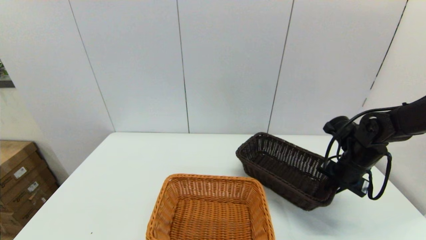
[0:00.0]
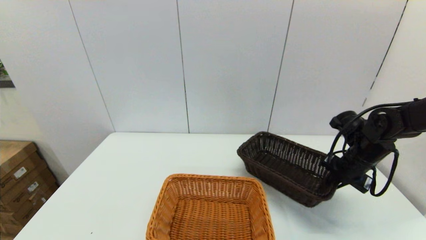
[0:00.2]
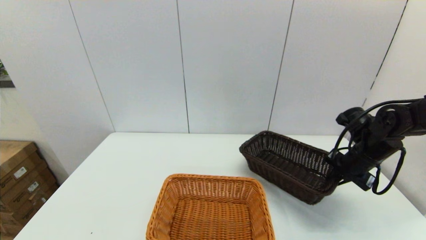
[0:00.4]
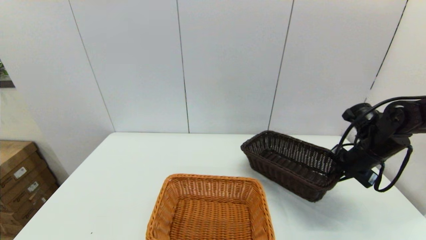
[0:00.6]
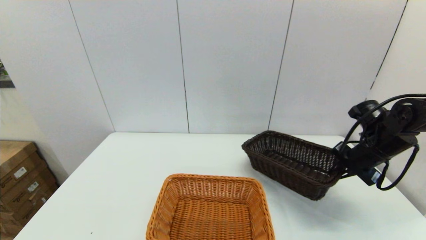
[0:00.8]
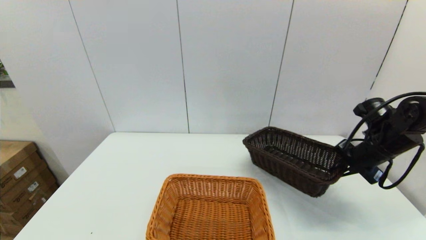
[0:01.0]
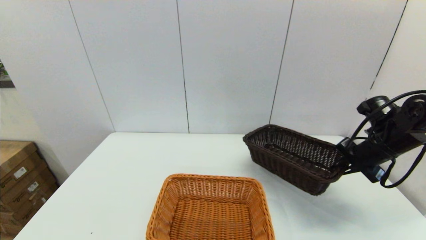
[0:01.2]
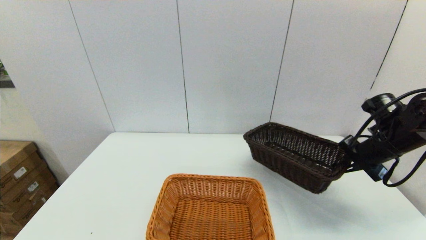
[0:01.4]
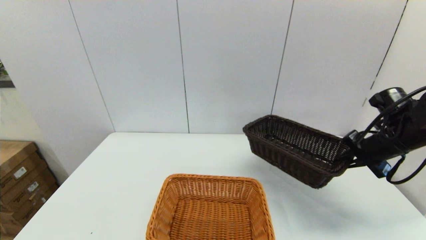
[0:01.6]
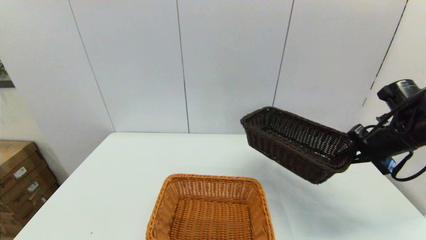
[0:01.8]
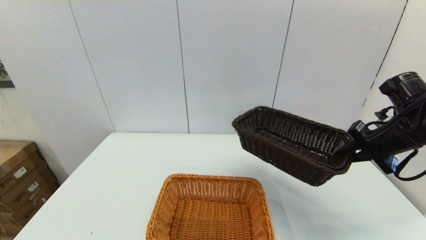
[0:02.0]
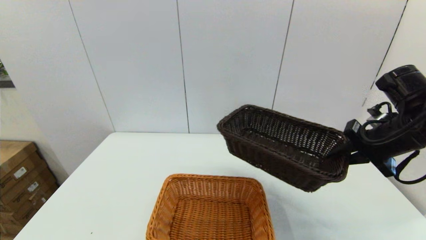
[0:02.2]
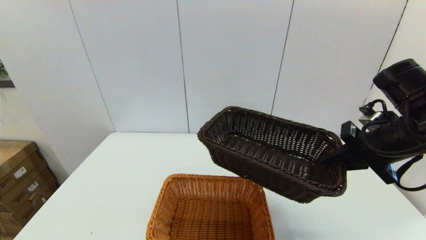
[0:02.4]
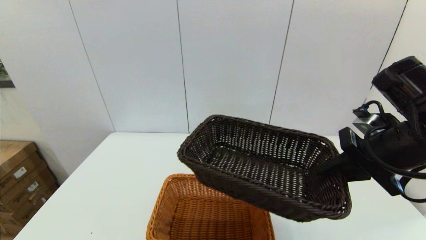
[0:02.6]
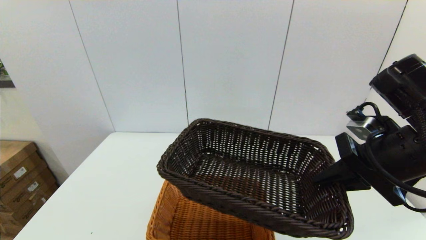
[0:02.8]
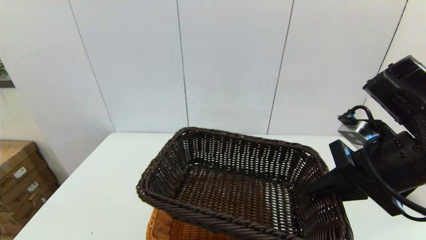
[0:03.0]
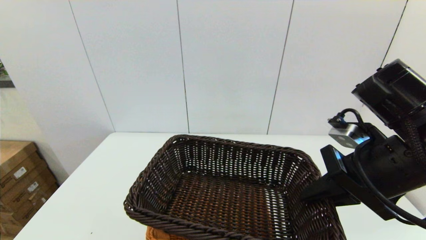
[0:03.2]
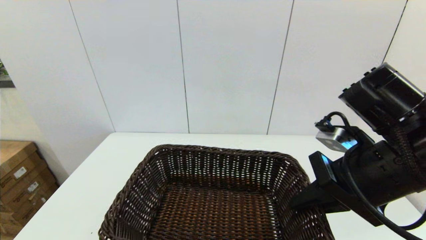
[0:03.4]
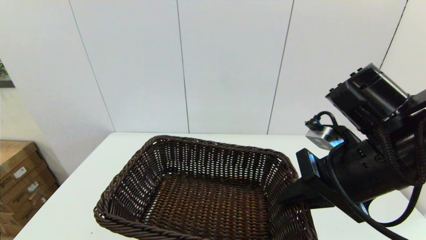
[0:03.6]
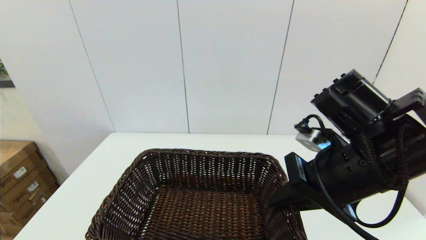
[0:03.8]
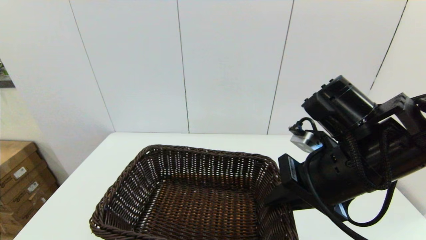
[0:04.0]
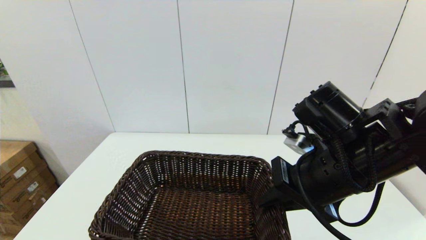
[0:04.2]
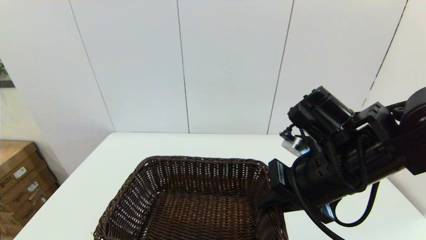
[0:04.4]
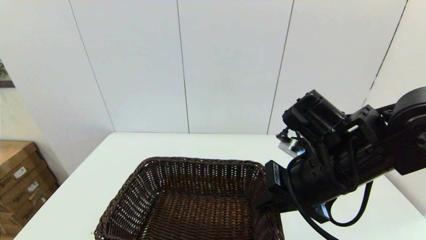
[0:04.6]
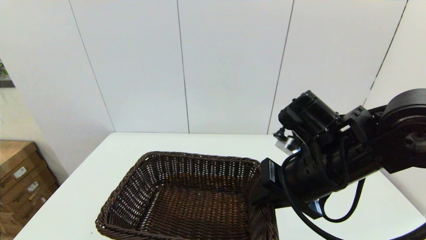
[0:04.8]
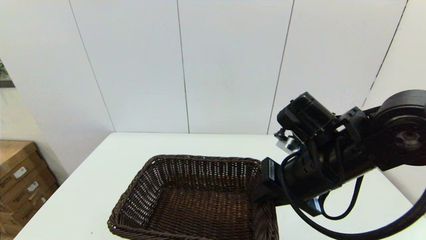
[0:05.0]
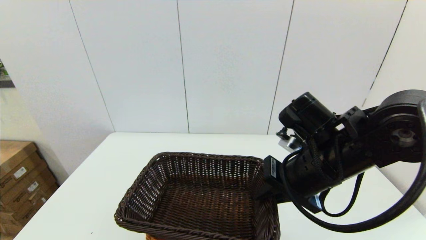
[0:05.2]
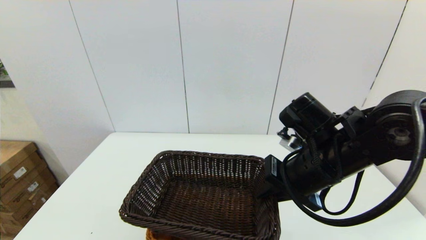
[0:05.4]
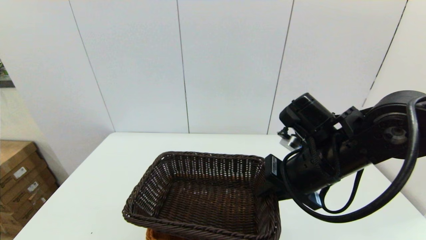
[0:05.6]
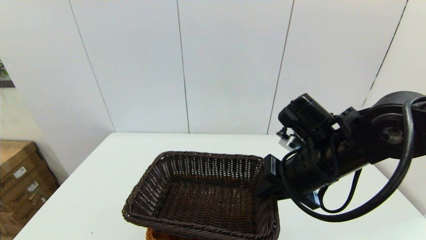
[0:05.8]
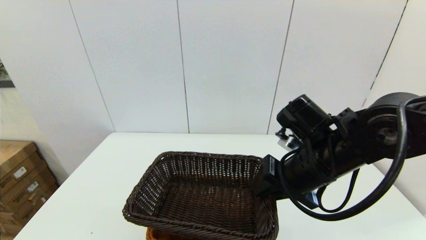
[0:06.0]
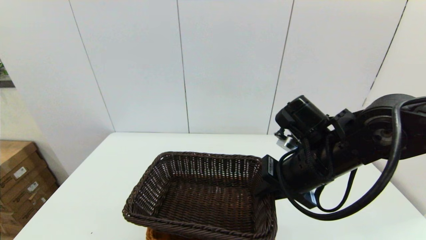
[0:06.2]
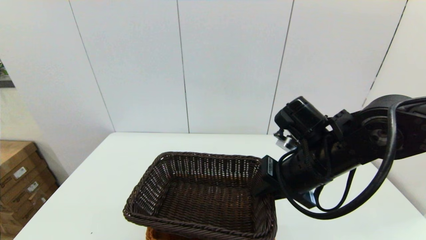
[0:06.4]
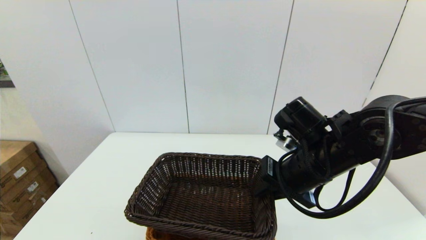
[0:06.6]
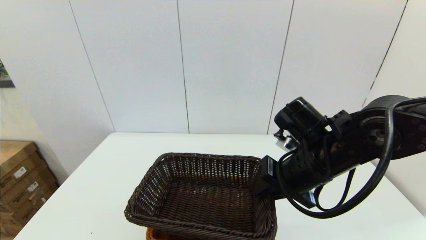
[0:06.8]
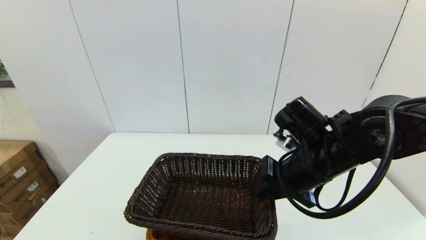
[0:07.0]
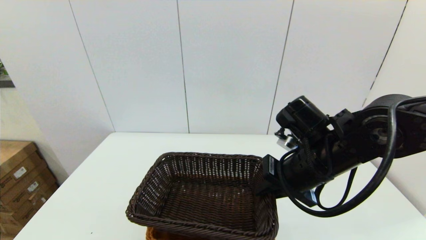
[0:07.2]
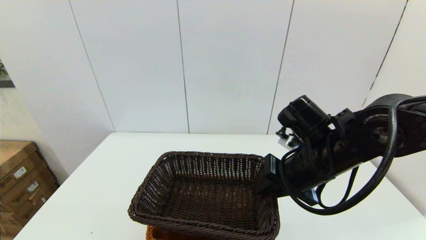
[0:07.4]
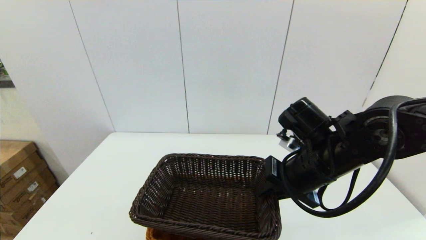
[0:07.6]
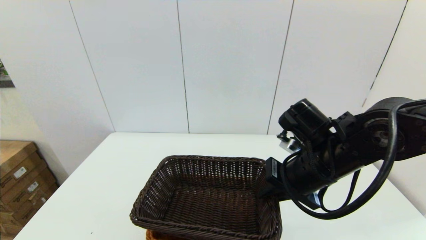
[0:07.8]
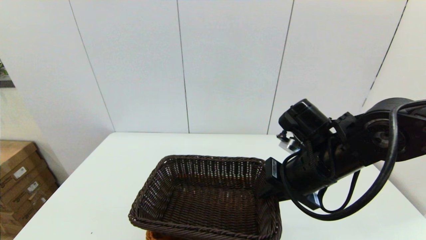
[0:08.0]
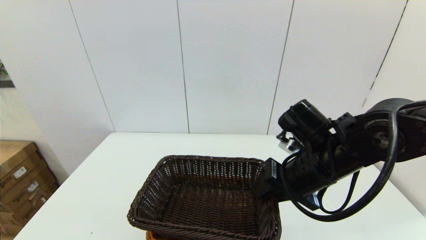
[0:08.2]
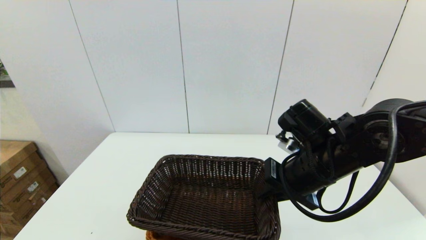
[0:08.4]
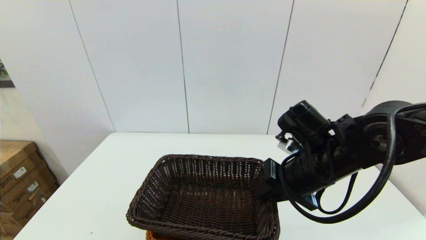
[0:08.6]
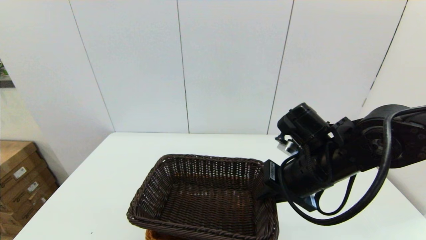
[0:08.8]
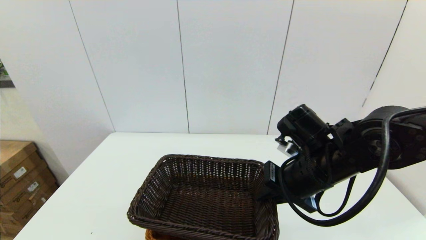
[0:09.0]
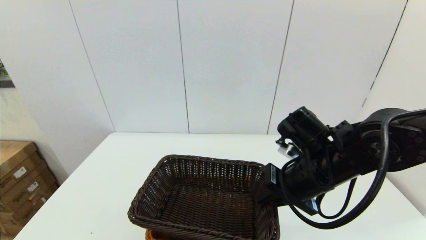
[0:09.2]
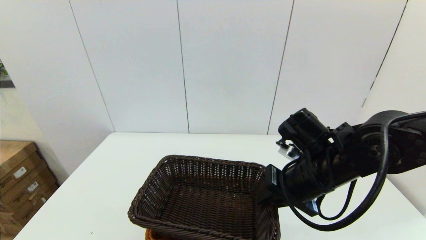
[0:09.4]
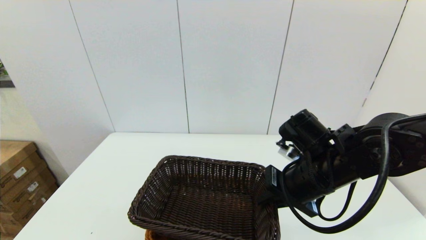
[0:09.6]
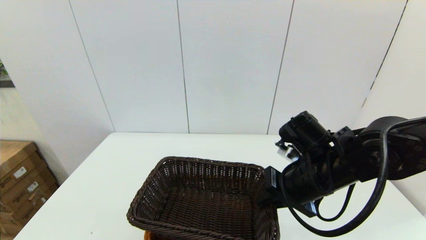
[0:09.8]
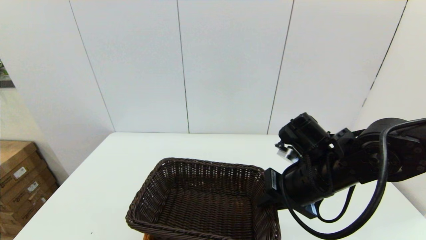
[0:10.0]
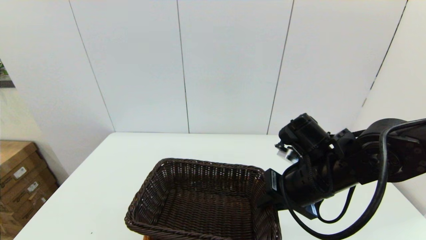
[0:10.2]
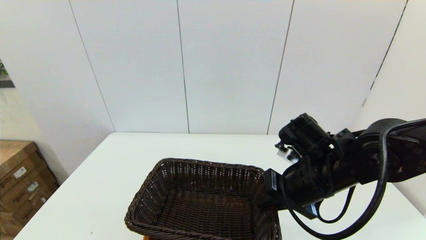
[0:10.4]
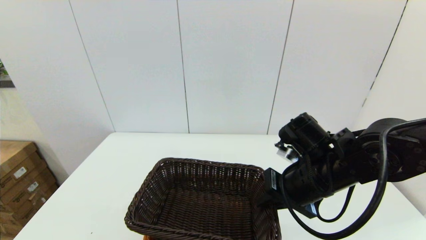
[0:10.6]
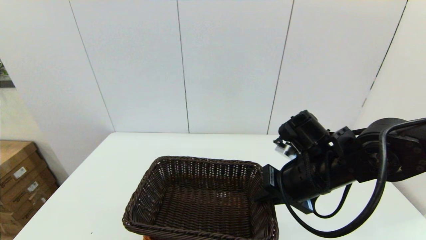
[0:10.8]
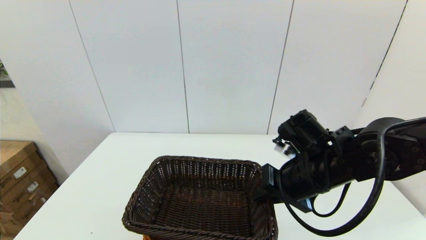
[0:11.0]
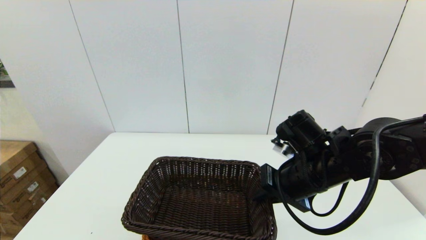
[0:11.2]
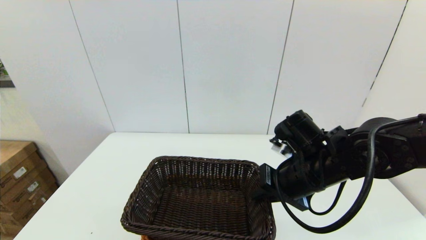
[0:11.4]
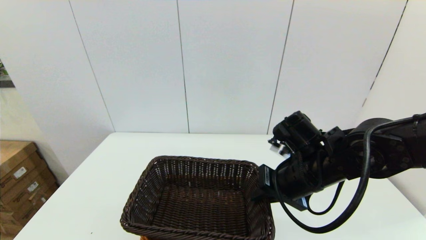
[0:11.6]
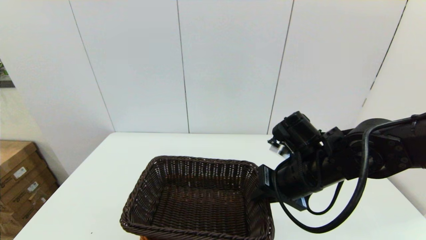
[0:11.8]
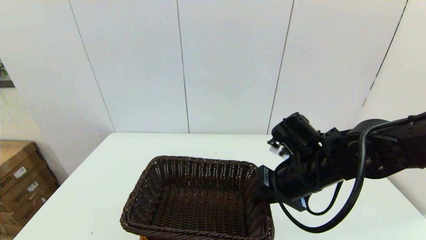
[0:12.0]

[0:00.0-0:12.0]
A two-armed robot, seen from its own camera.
Task of the whole recording: stack a basket on top of another basket.
0:00.0 to 0:01.6: The right gripper heads upward, covering approximately 10 cm.
0:01.6 to 0:03.0: The right gripper moves to the left, backward and upward, about 20 cm.
0:03.0 to 0:04.4: The right gripper moves to the left, about 5 cm.
0:04.4 to 0:06.0: The grippers move only a little.
0:06.0 to 0:07.6: The two grippers keep their place.
0:07.6 to 0:09.0: Neither gripper changes place.
0:09.0 to 0:12.0: The grippers make only small movements.

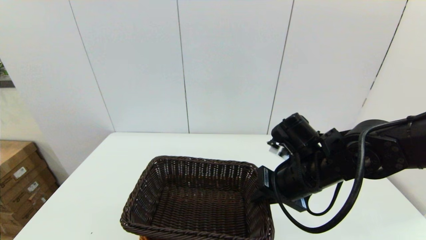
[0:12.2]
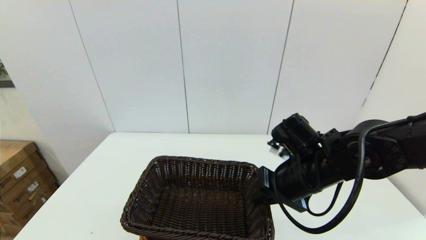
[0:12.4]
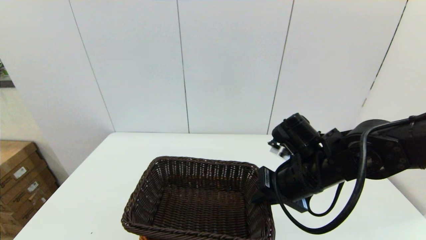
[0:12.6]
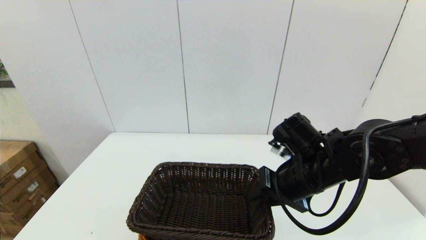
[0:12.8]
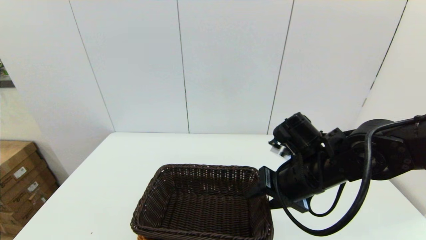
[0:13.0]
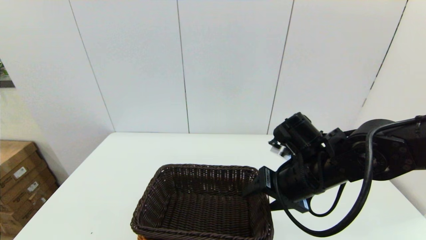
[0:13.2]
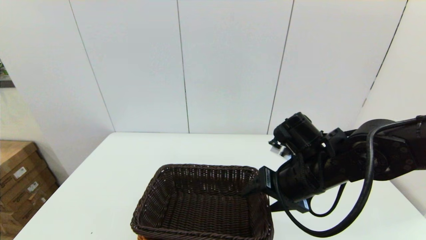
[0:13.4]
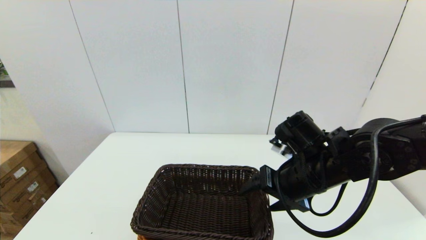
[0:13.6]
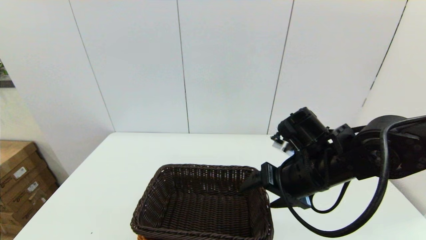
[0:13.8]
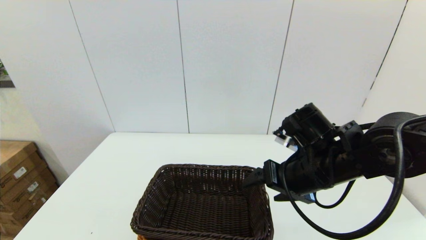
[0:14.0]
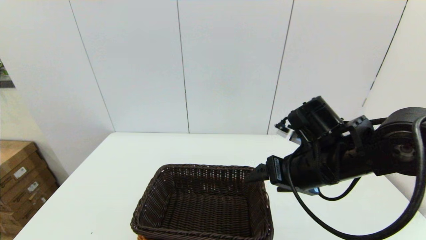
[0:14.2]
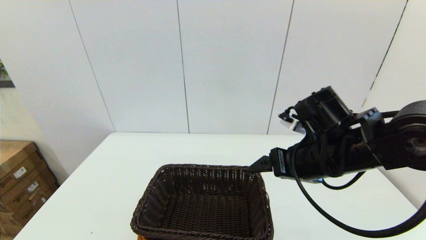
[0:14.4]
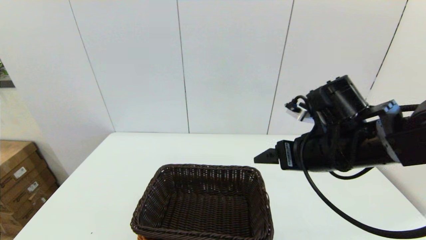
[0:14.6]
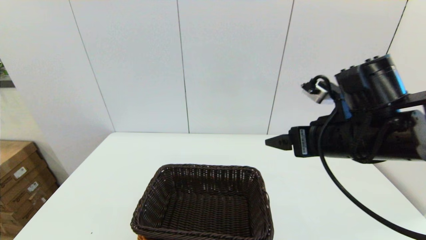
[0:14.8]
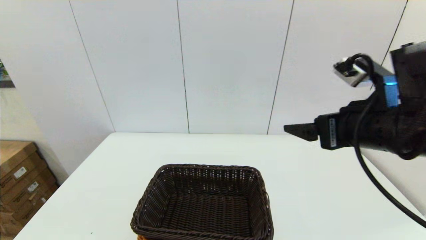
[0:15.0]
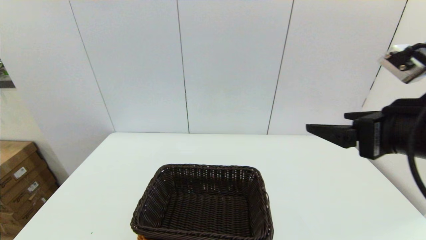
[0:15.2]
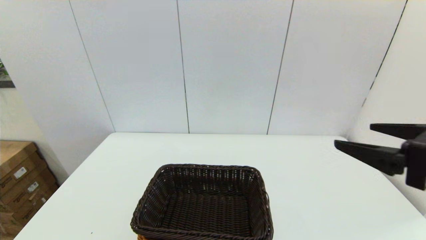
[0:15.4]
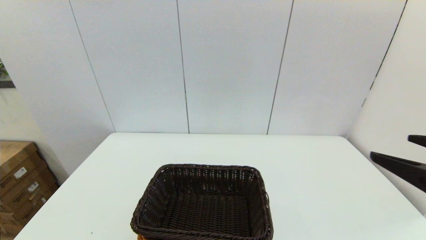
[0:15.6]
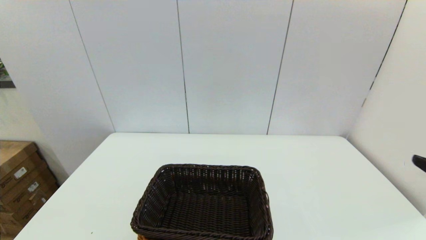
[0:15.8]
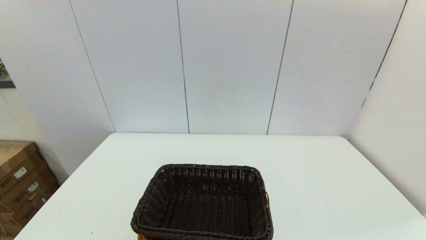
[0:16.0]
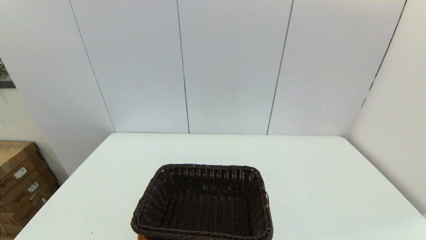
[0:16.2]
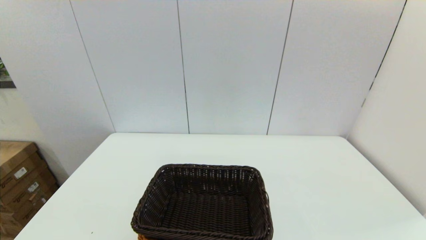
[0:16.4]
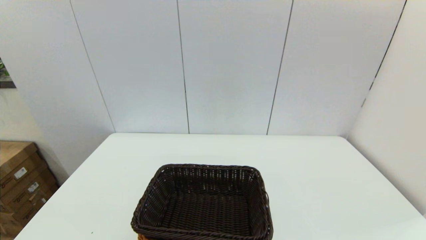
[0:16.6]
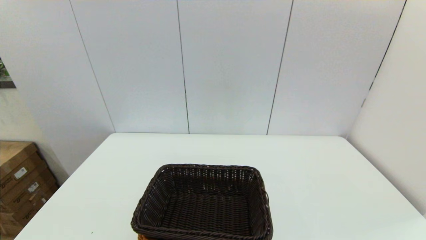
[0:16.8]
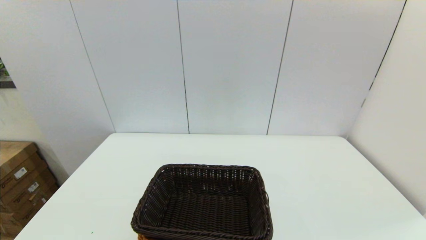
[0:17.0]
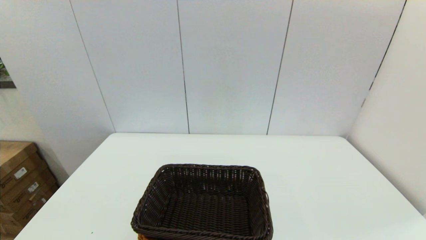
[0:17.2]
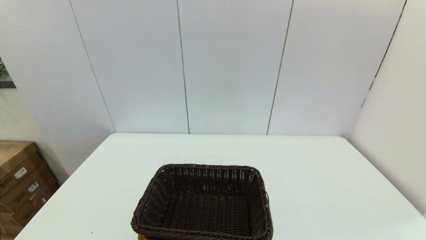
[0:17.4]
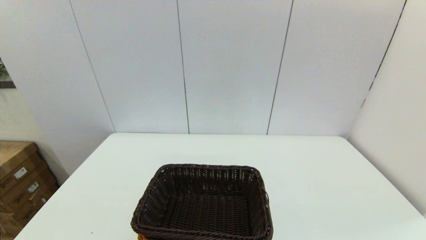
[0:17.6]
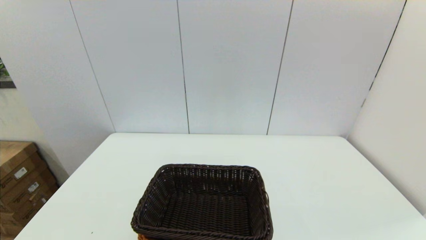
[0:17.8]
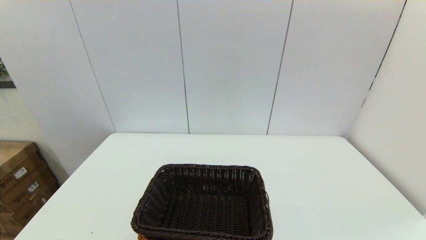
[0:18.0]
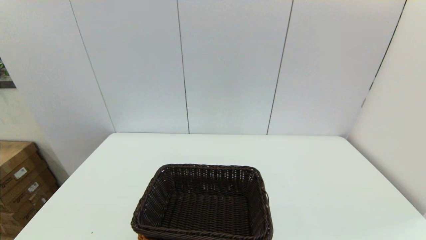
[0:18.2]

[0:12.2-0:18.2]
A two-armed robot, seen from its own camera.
Task of the whole recording: stack a basket on top of another basket.
0:12.2 to 0:13.8: The right gripper opens up.
0:13.8 to 0:15.2: The right gripper shifts roughly 15 cm upward, backward and to the right.
0:15.2 to 0:16.6: The right gripper travels backward, downward and to the right by some 25 cm.
